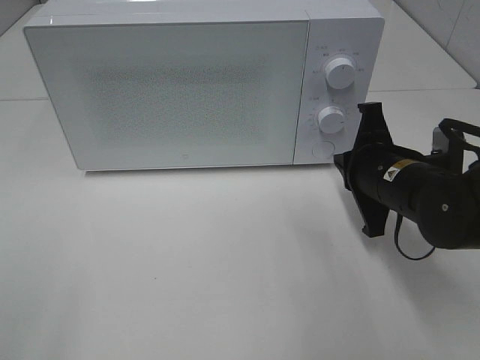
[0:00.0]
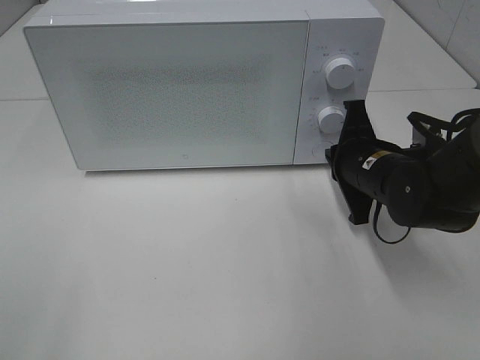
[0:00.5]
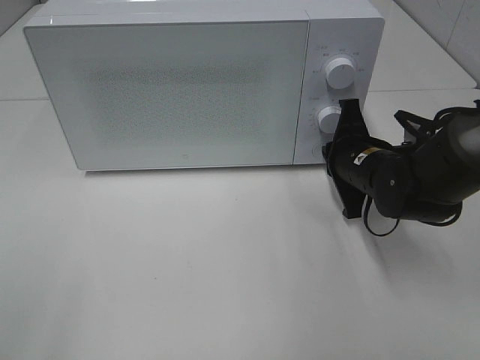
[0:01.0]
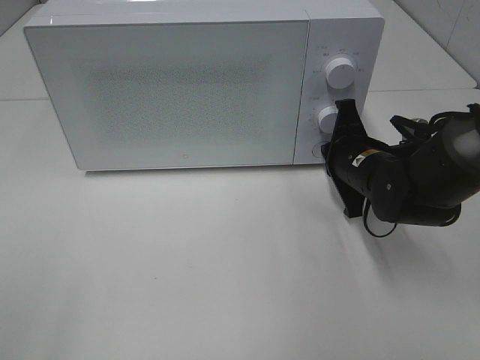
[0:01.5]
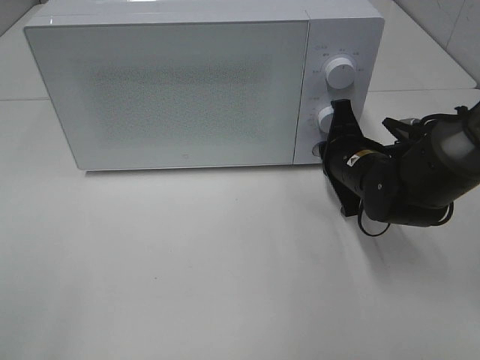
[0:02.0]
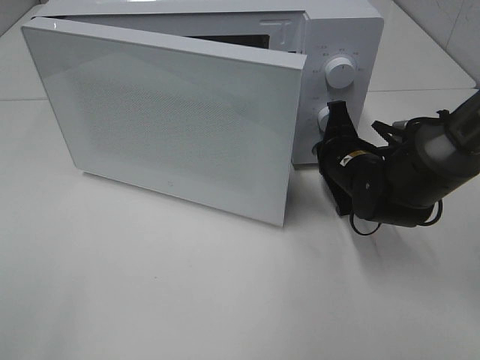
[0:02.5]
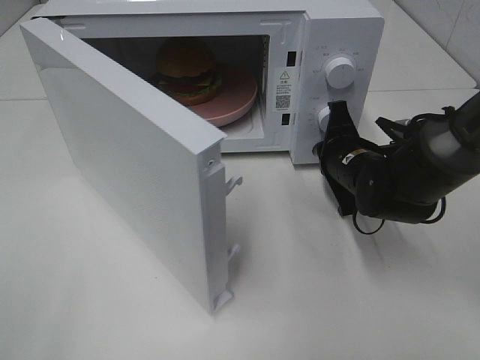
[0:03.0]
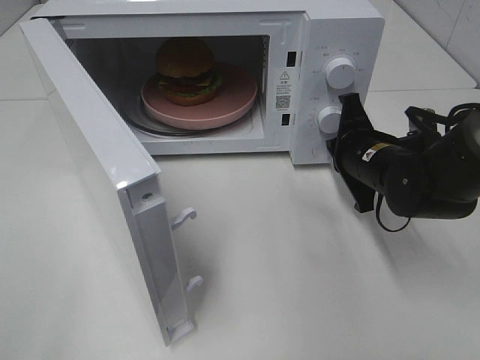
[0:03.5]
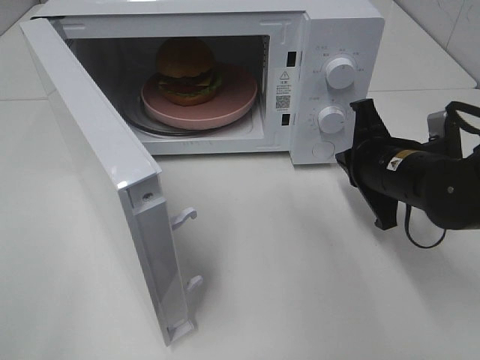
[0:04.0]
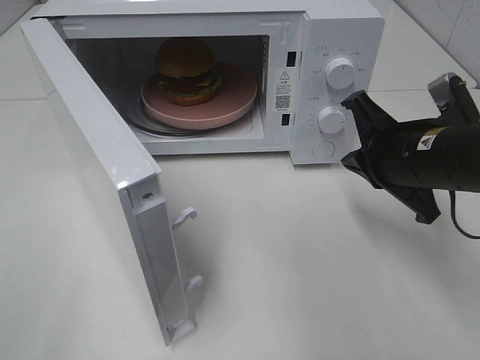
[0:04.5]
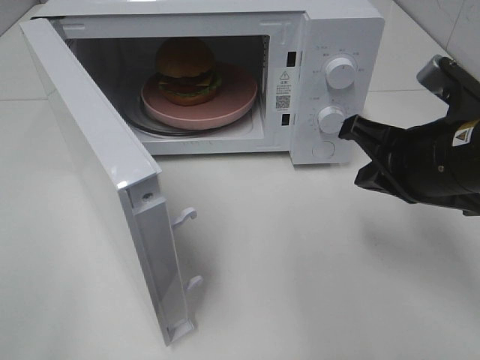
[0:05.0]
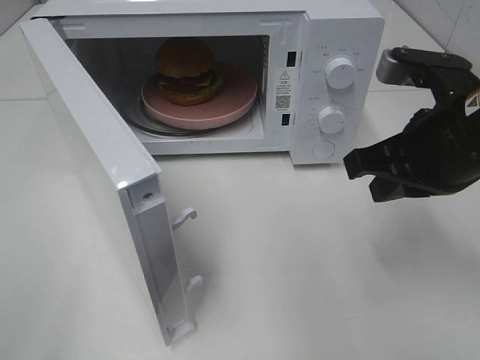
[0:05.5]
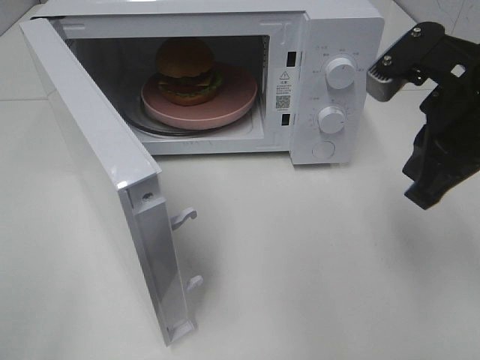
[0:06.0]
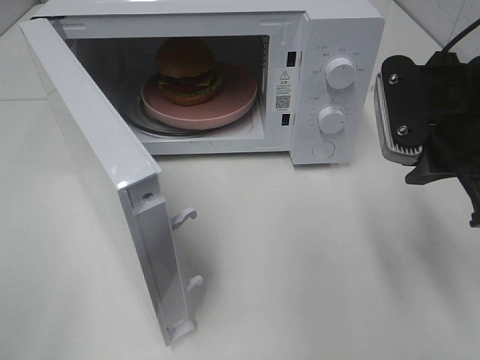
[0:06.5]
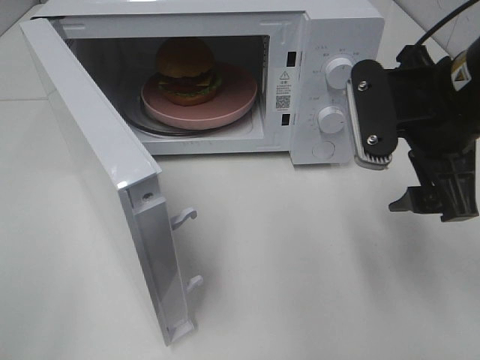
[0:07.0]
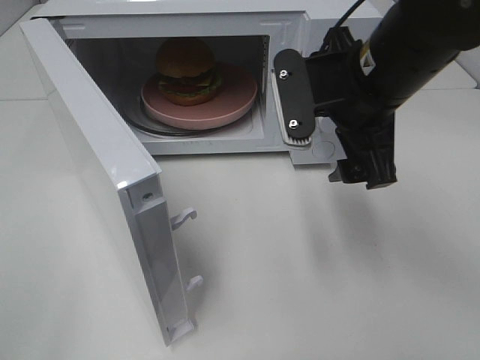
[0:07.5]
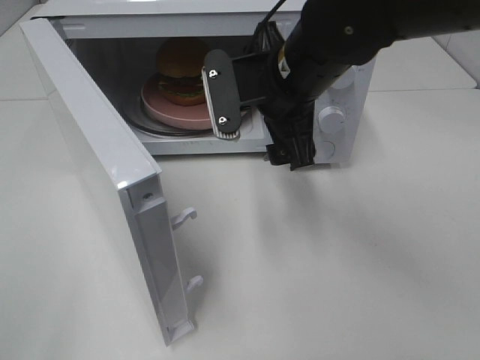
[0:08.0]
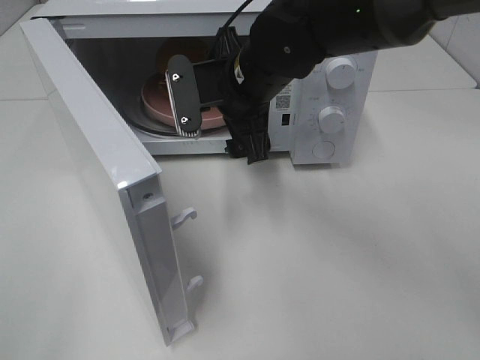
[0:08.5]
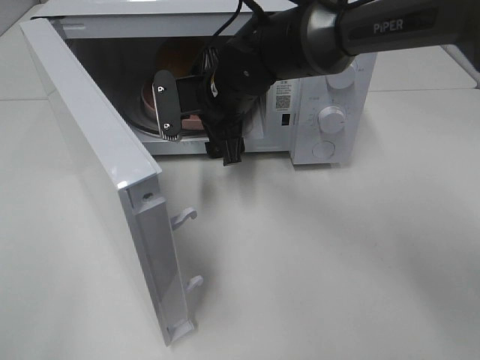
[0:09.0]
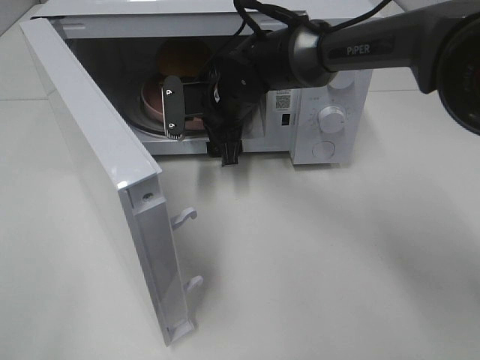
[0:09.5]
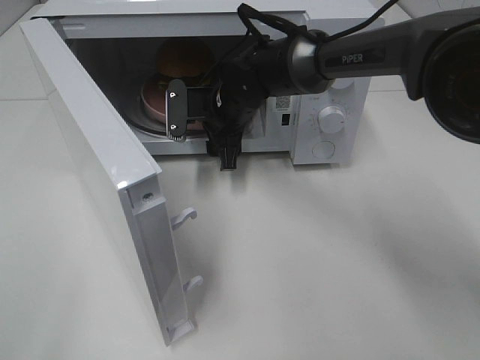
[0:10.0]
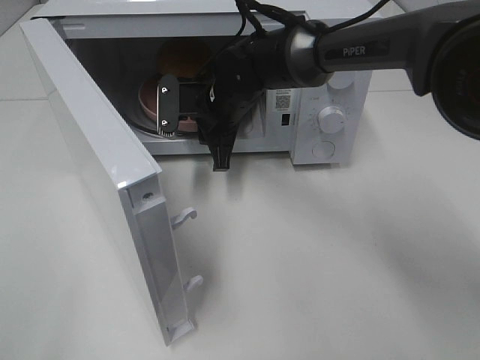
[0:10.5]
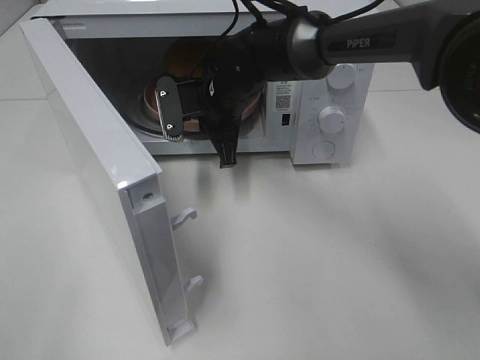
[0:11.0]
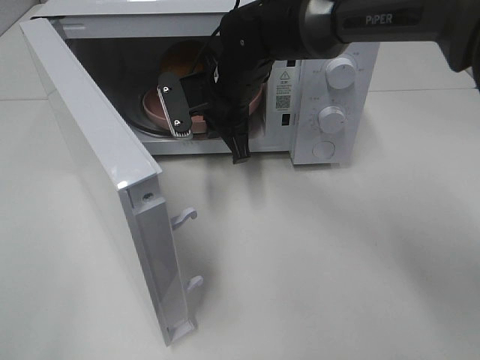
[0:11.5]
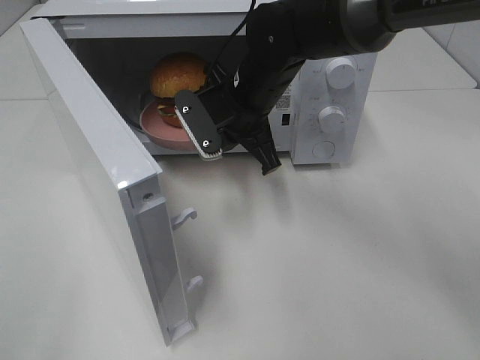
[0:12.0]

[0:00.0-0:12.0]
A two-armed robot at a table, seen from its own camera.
Task of the whole recording: Heat the burger.
Step, 0:00.0 to 0:03.5: Right hand: press the switch.
Step, 0:04.0 to 0:10.5: Right hand: grab the plate with the hamburger.
0:00.0 to 0:02.0: The right gripper travels forward by roughly 5 cm.
0:02.0 to 0:04.0: The right gripper changes place by some 5 cm.
0:04.0 to 0:06.0: The right gripper travels upward by approximately 15 cm.
0:06.0 to 0:08.0: The right gripper moves to the left and forward, approximately 15 cm, and opens up.
0:08.0 to 0:10.0: The right gripper travels forward, downward and to the left by some 15 cm.
0:10.0 to 0:12.0: The right gripper travels upward and backward by roughly 10 cm, and closes up.

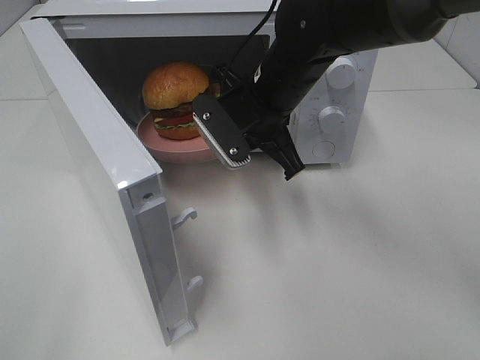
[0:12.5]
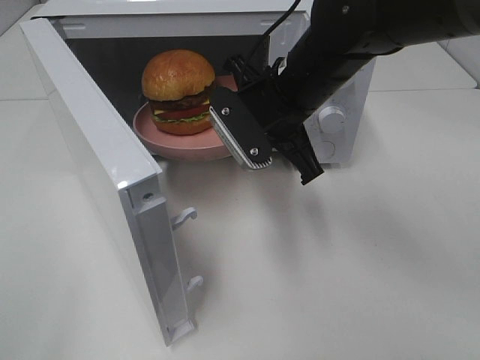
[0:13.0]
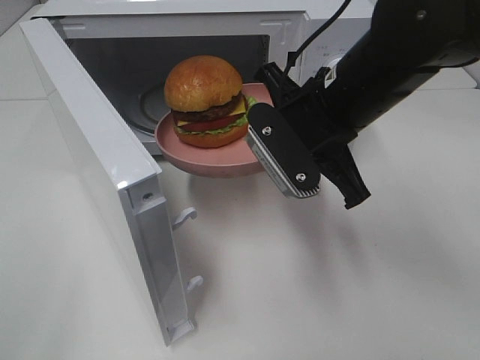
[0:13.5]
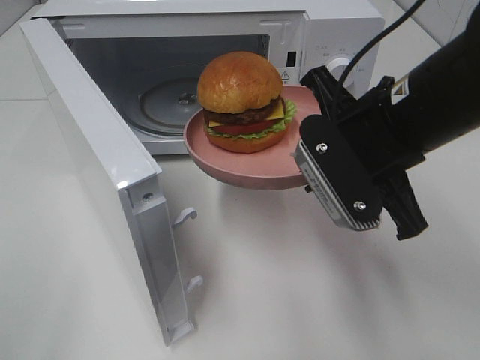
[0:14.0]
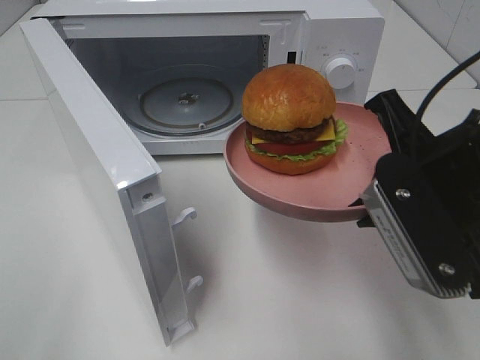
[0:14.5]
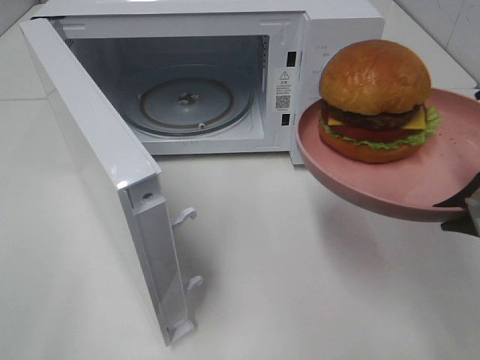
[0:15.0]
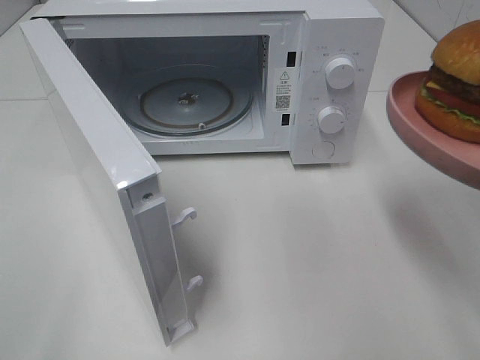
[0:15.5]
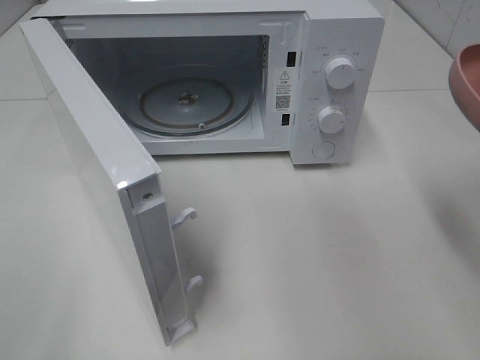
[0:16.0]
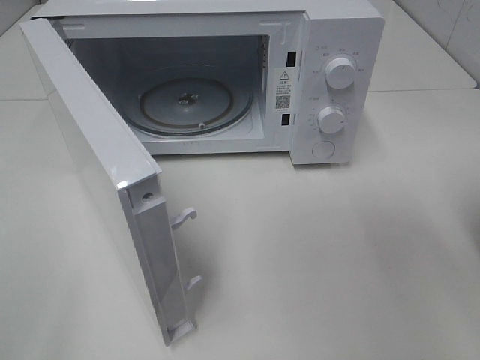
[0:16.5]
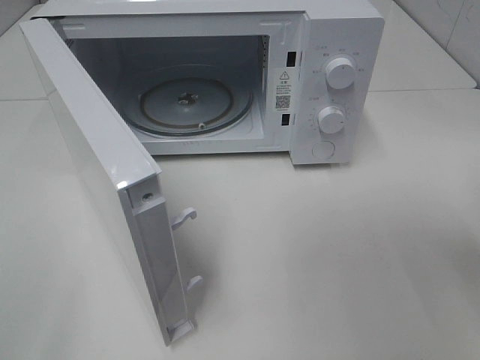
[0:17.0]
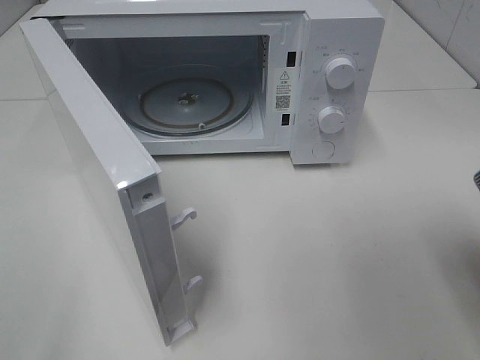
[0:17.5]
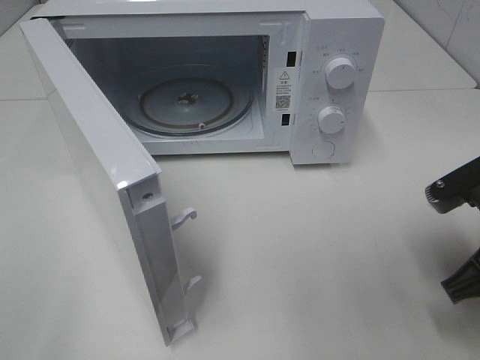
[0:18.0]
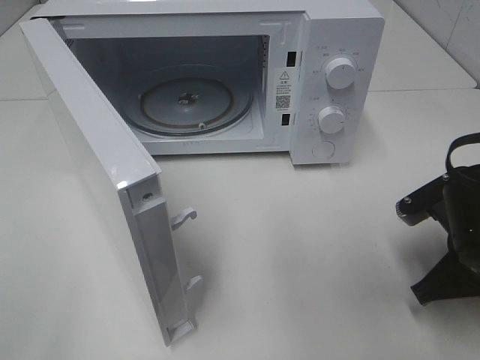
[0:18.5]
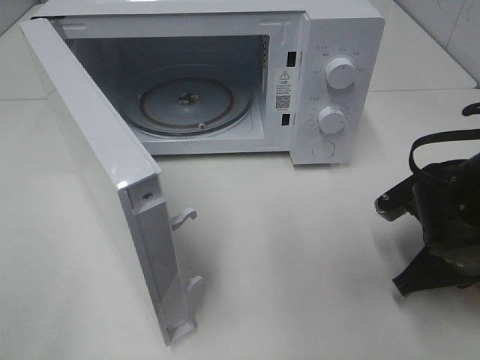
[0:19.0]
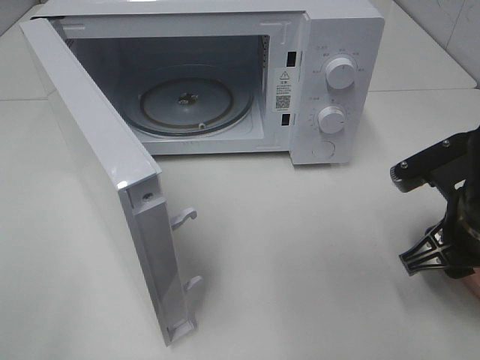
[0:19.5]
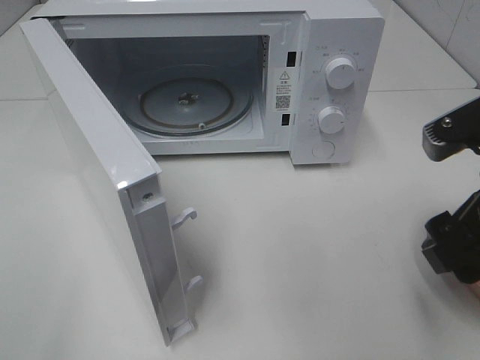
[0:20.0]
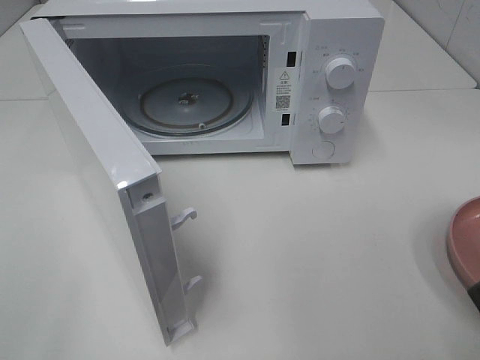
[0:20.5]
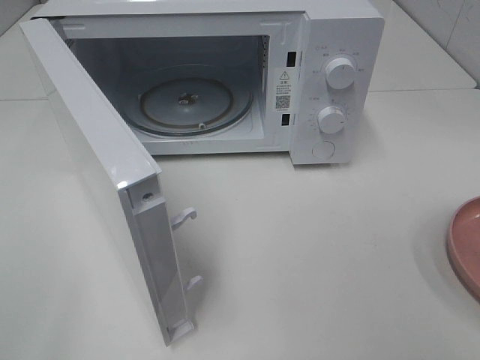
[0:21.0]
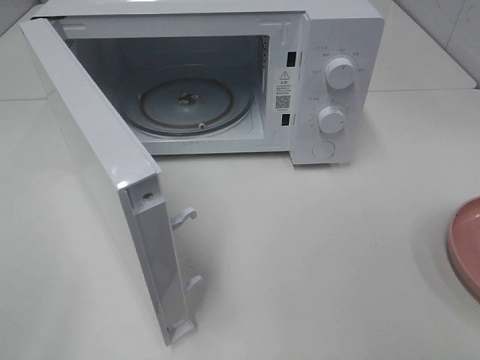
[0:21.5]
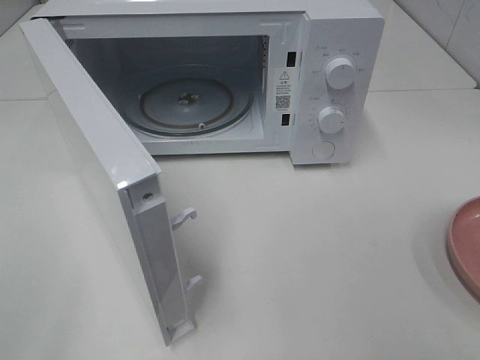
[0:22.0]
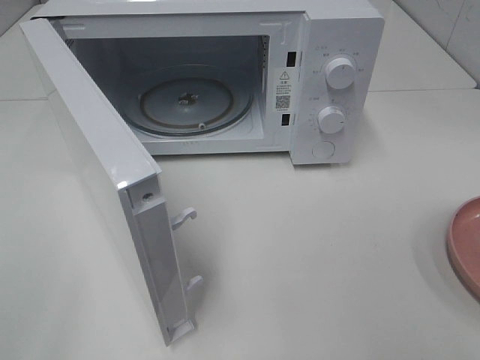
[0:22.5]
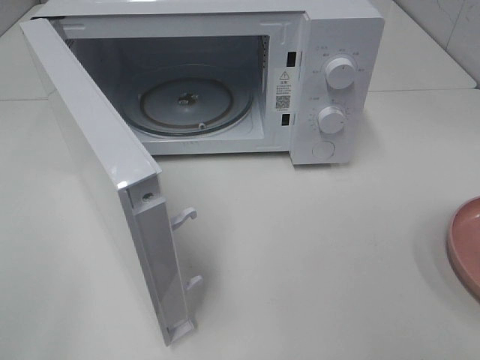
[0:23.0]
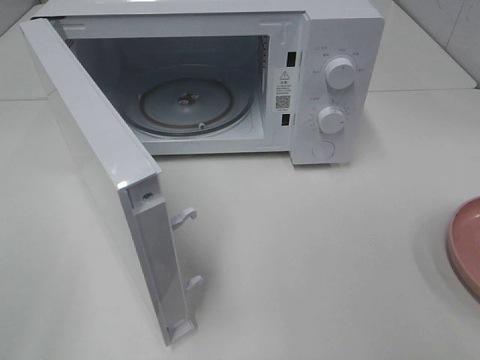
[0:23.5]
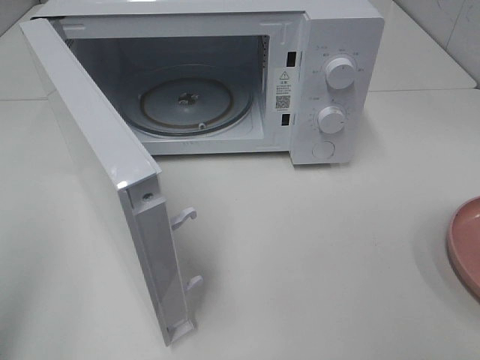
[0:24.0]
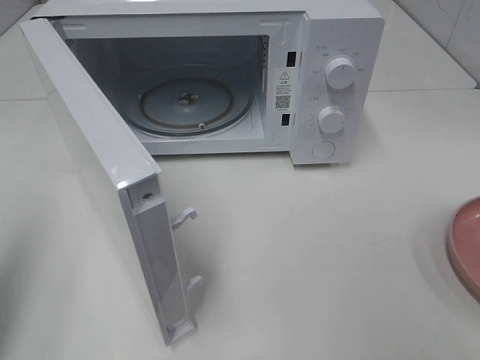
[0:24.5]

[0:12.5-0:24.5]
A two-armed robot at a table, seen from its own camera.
Task of the whole recording: Heat the burger.
Step, 0:12.5 to 0:19.0: Right hand: place the plate on the table.
0:12.5 to 0:14.5: The right gripper goes roughly 20 cm backward and to the right.
0:14.5 to 0:16.5: The right gripper heads to the right and backward, covering about 10 cm.
0:16.5 to 0:18.5: The right gripper heads downward and forward, covering some 15 cm.
0:18.5 to 0:20.5: The right gripper shifts about 15 cm upward and backward, and opens up.
0:22.5 to 0:24.5: The left gripper moves forward, some 15 cm, and closes up.

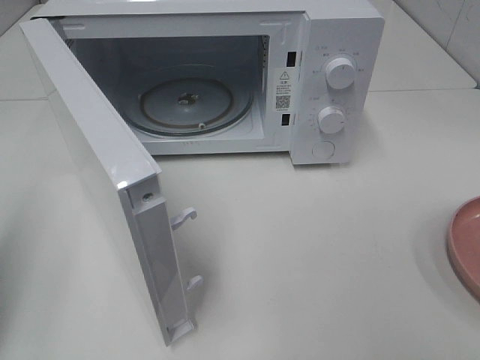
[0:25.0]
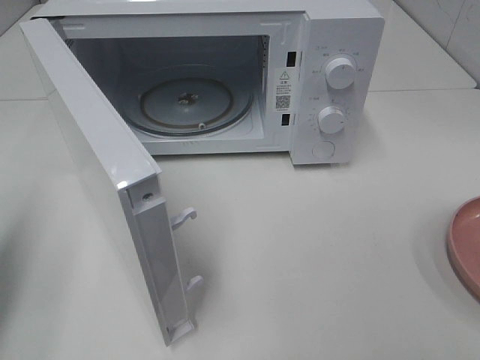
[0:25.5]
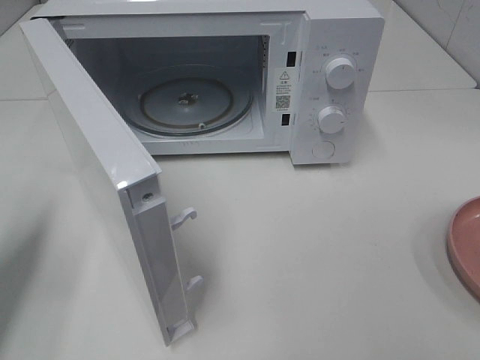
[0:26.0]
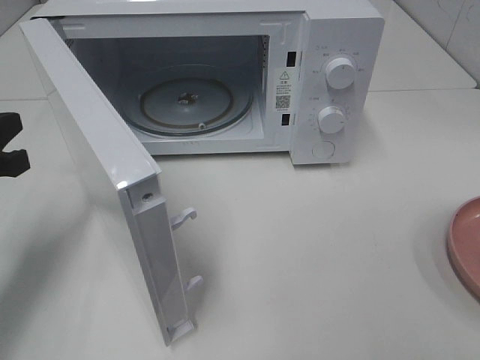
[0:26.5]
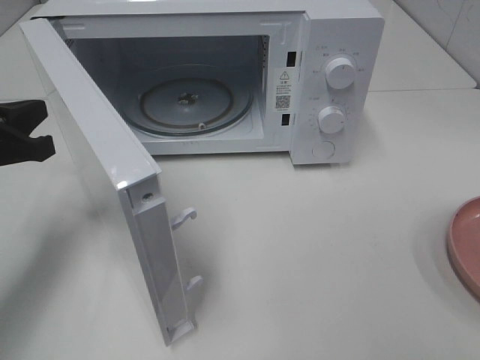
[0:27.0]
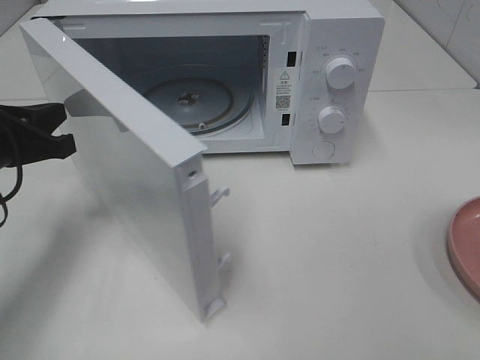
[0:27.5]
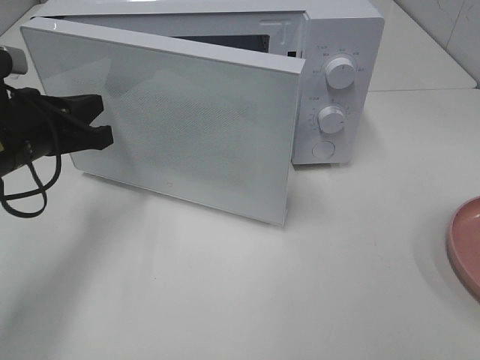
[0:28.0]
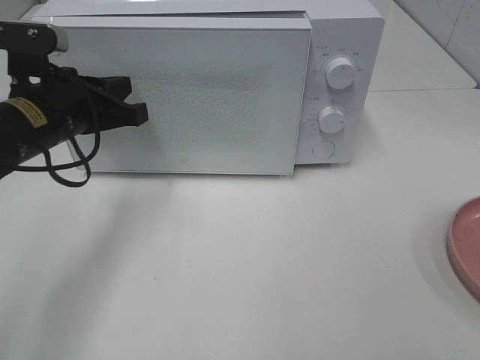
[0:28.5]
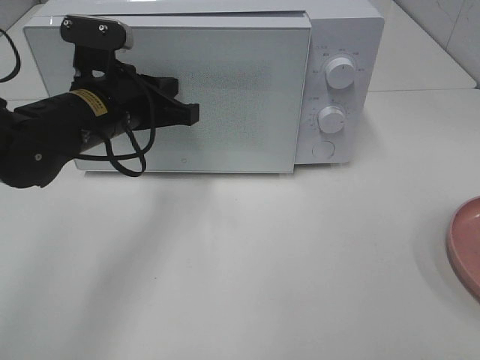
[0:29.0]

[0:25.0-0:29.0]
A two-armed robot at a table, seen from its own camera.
Task of the whole recording: Heat the burger.
0:25.0 to 0:27.0: The left gripper heads forward, downward and to the right, covering some 15 cm.
0:27.0 to 0:29.0: The left gripper shifts approximately 15 cm to the right and forward.
